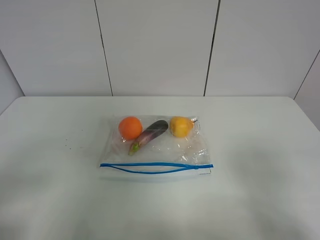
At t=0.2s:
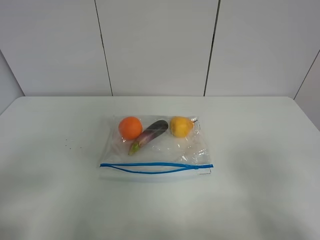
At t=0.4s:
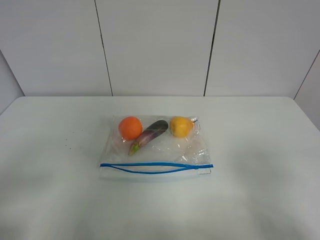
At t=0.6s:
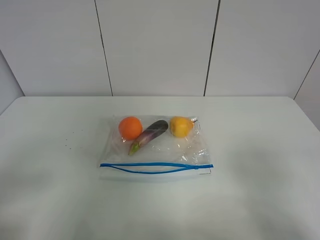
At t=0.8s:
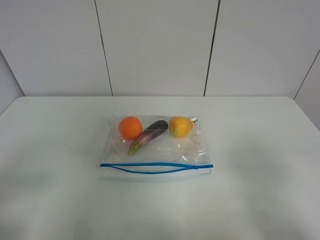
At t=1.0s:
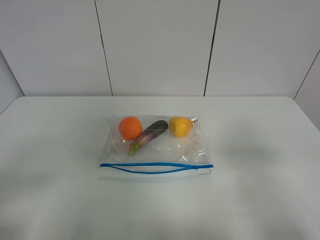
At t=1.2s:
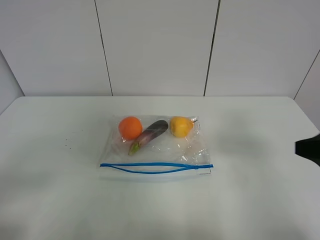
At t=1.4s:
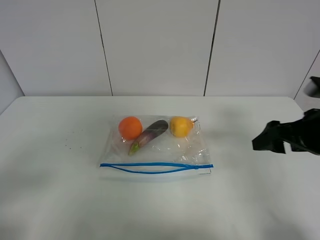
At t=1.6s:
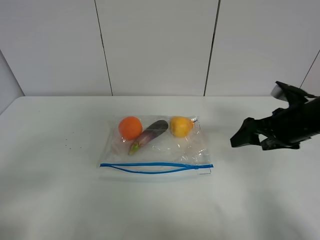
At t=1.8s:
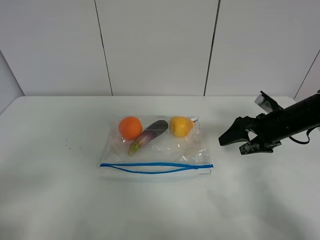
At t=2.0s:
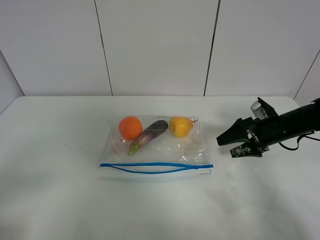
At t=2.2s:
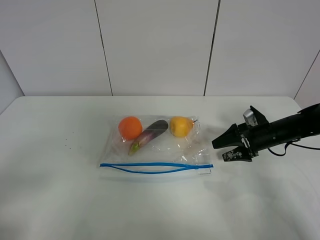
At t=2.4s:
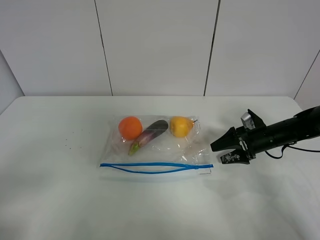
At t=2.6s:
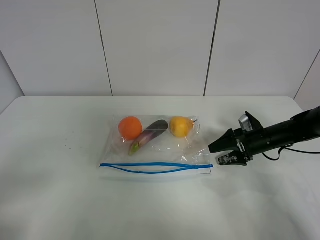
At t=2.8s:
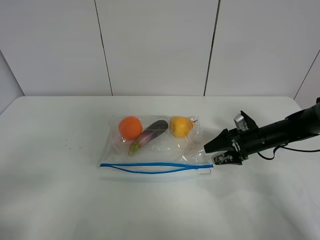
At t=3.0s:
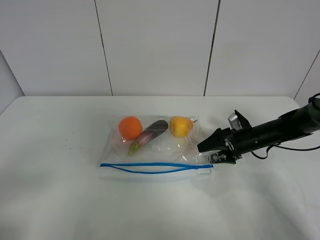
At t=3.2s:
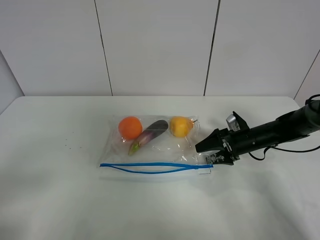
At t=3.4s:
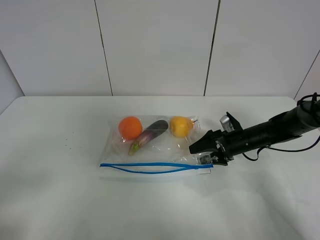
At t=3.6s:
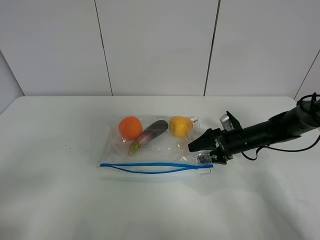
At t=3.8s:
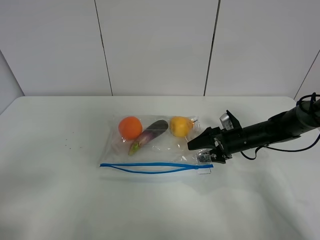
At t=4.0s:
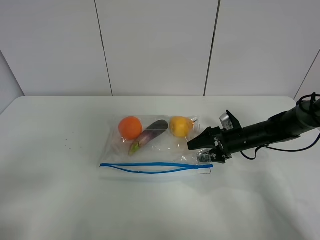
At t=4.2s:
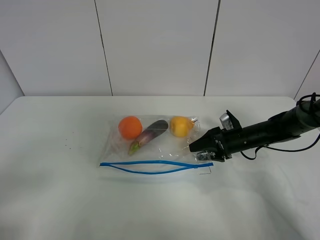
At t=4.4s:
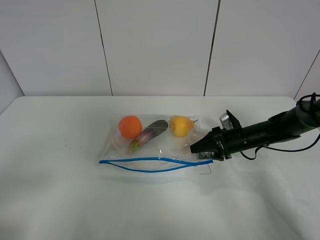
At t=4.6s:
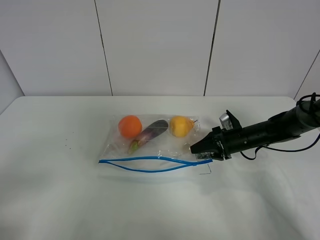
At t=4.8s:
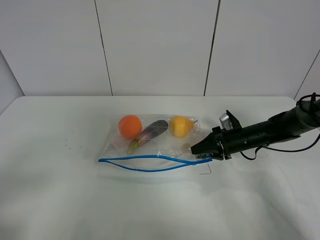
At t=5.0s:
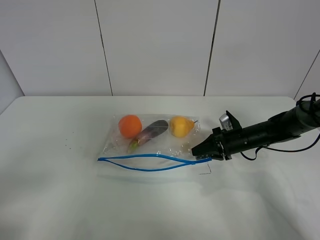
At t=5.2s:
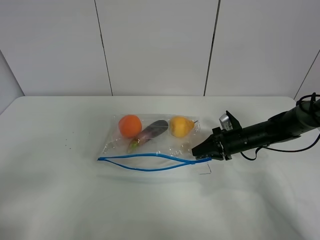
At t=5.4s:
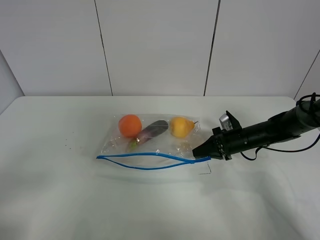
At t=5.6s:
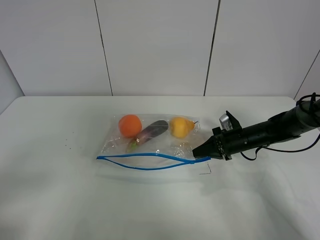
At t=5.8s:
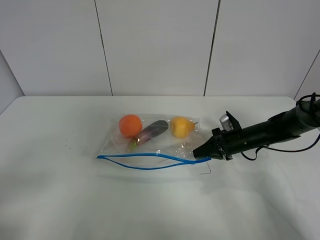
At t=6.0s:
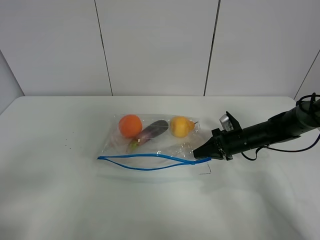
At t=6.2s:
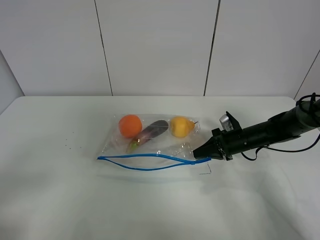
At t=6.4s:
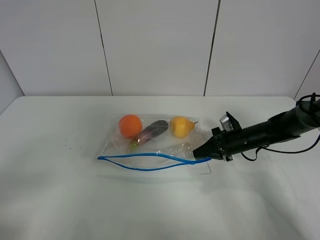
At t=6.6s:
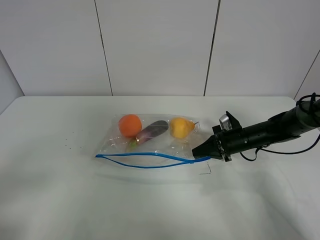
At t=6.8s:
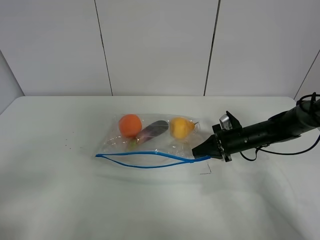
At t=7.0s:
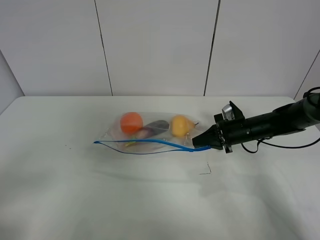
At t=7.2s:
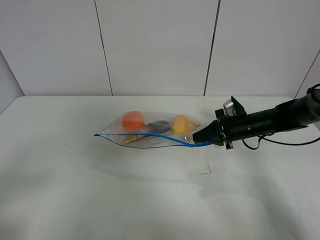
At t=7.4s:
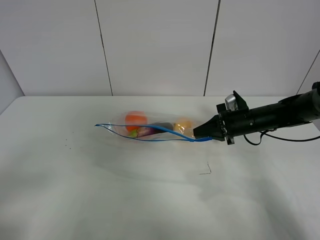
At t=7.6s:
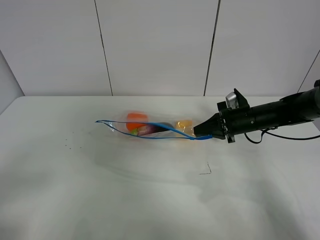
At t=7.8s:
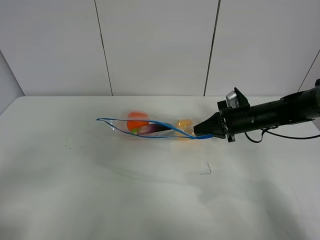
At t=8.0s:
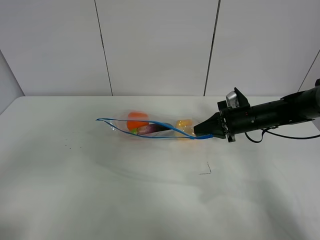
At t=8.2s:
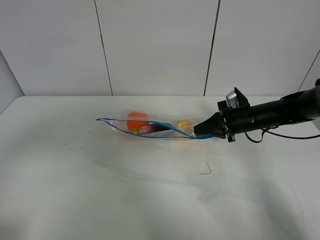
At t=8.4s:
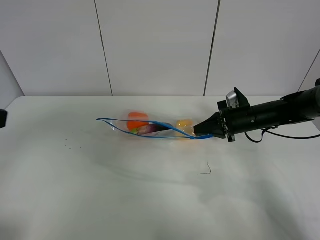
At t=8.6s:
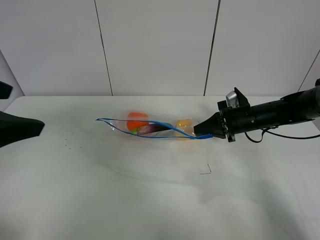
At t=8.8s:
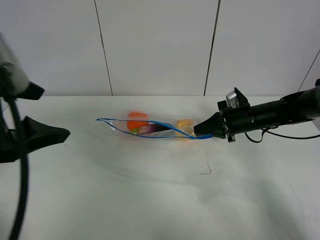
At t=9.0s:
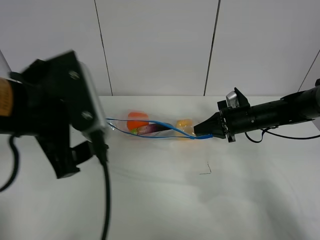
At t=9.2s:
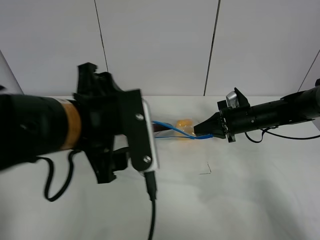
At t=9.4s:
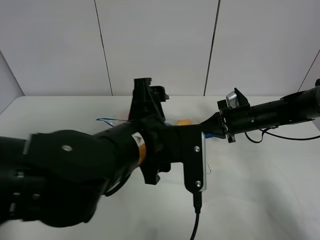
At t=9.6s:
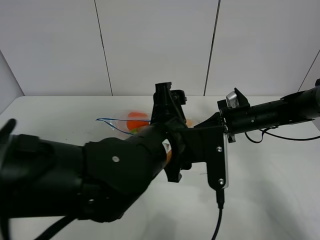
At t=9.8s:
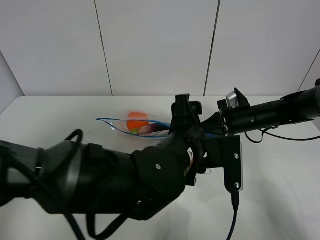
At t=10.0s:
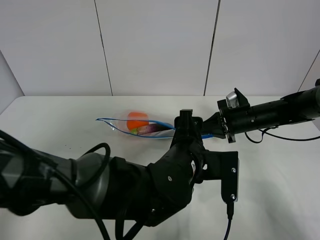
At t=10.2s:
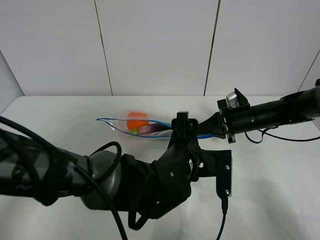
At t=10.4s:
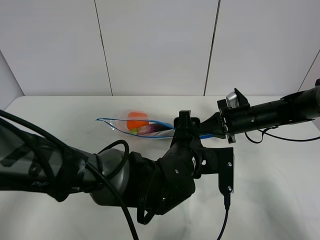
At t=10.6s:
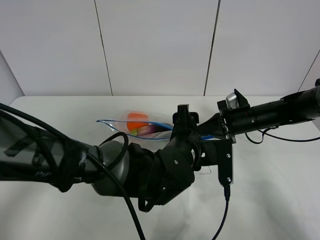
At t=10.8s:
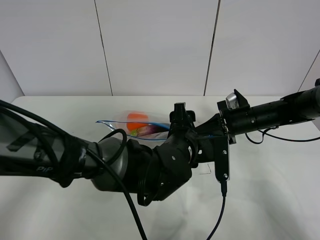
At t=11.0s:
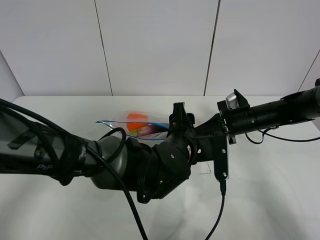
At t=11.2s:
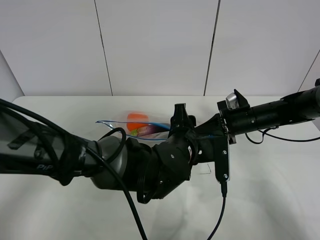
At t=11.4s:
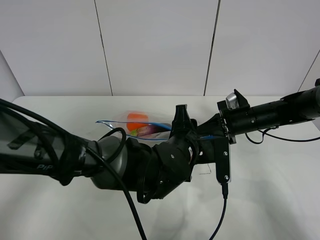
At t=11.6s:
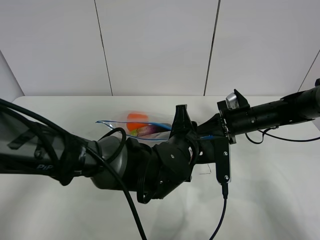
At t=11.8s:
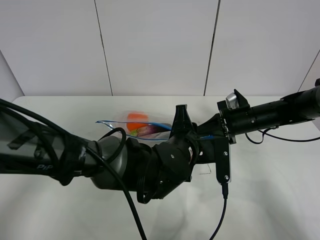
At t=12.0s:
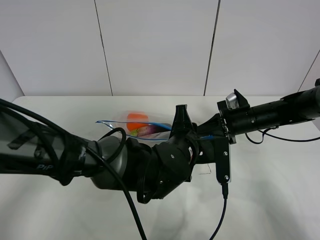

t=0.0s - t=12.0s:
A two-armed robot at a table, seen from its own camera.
Step, t=0.0s - t=5.4s: Grasp the fruit bag with right gripper.
Step, t=5.6s - t=8.0s: Lift the fruit bag with your right gripper.
t=0.0s - t=1.6s: The right gripper shifts some 25 cm forward.
t=1.6s - t=3.0s: The right gripper travels downward and forward by roughly 15 cm.
t=3.0s - t=4.4s: The right gripper closes.
t=4.4s - t=6.0s: The right gripper closes up.
t=6.0s - t=7.6s: The right gripper travels upward by about 5 cm.
t=7.6s - t=9.0s: The left gripper heads to the right and forward, covering about 25 cm.
t=9.0s - t=10.4s: The left gripper moves to the right and downward, about 25 cm.
t=10.4s - t=12.0s: The left gripper closes up.

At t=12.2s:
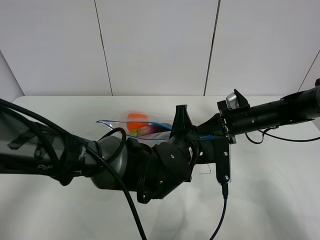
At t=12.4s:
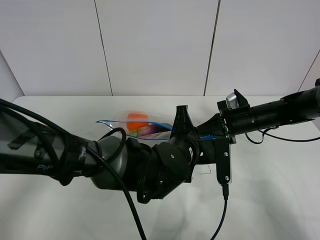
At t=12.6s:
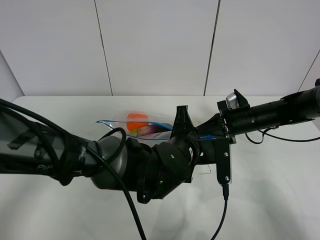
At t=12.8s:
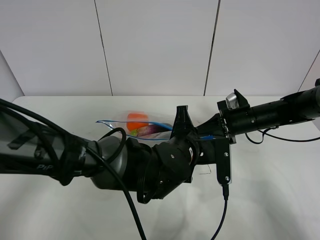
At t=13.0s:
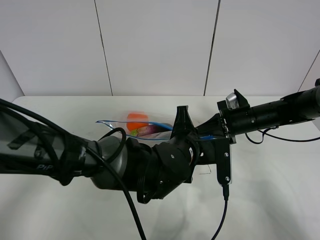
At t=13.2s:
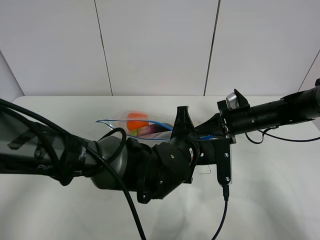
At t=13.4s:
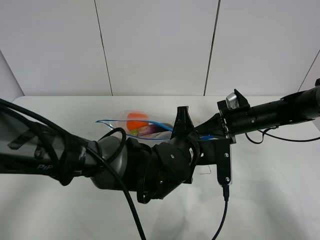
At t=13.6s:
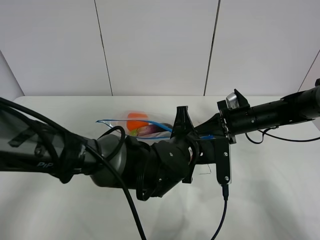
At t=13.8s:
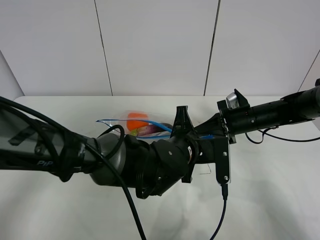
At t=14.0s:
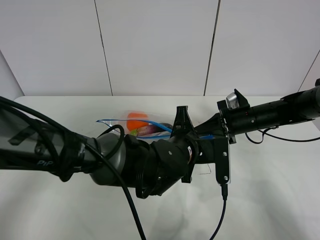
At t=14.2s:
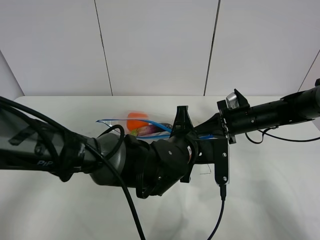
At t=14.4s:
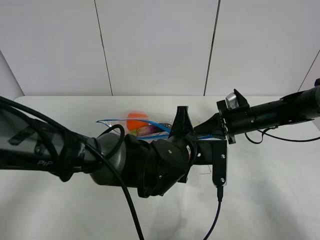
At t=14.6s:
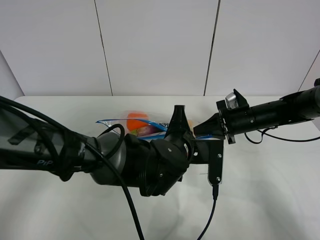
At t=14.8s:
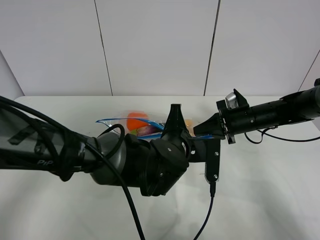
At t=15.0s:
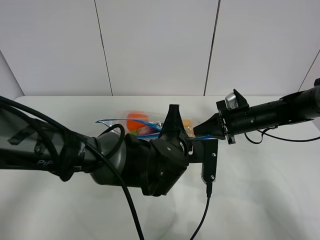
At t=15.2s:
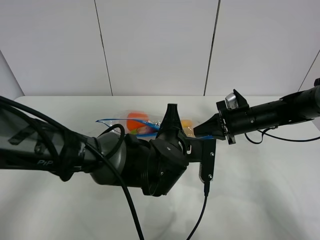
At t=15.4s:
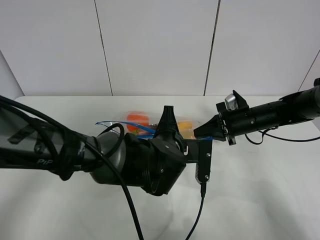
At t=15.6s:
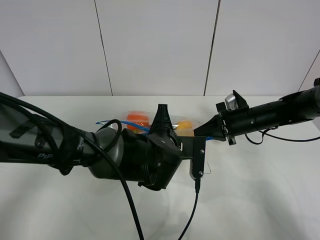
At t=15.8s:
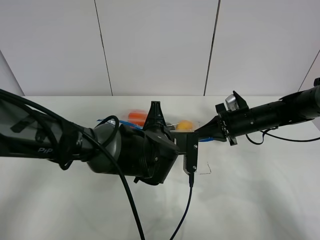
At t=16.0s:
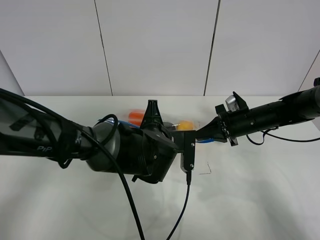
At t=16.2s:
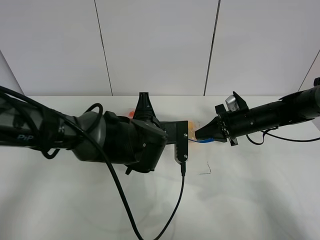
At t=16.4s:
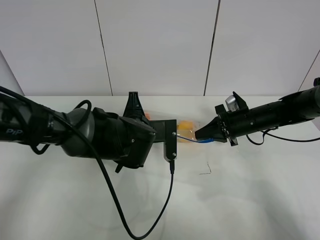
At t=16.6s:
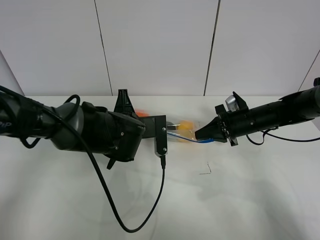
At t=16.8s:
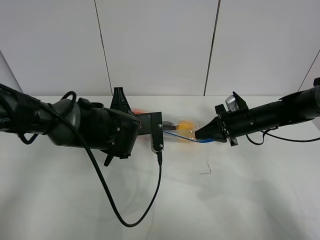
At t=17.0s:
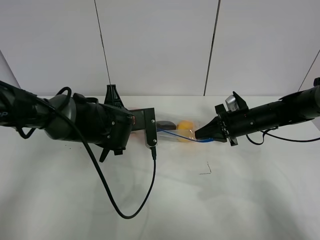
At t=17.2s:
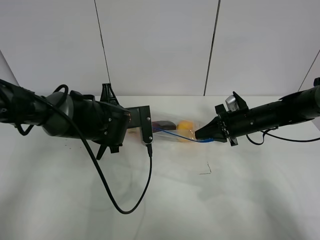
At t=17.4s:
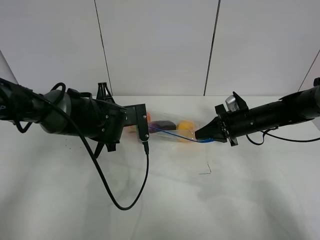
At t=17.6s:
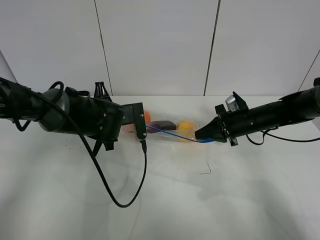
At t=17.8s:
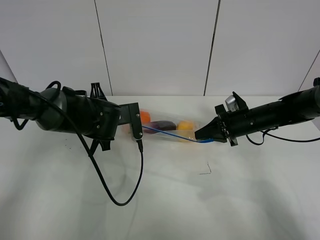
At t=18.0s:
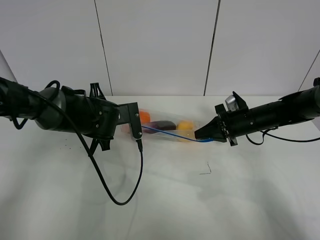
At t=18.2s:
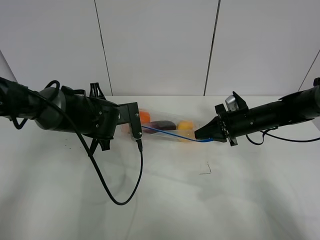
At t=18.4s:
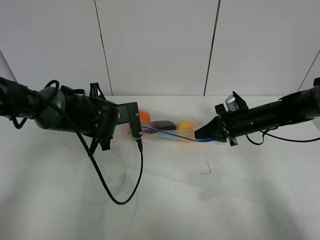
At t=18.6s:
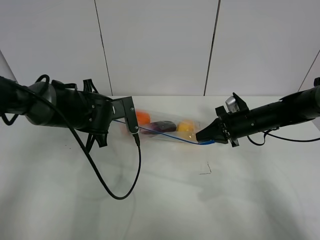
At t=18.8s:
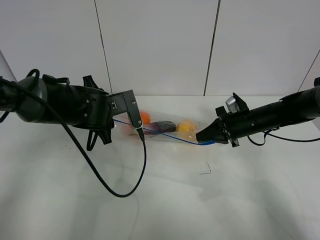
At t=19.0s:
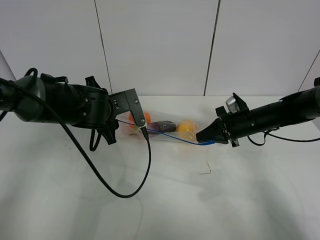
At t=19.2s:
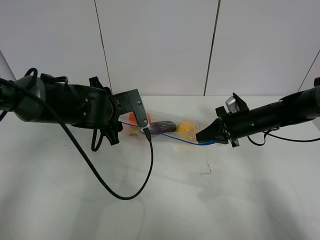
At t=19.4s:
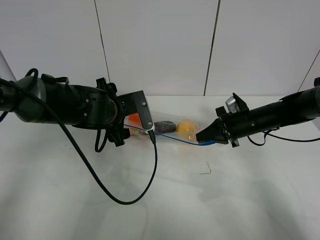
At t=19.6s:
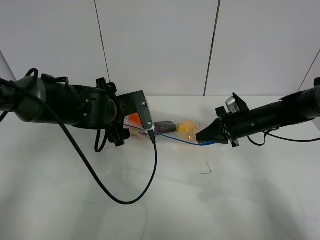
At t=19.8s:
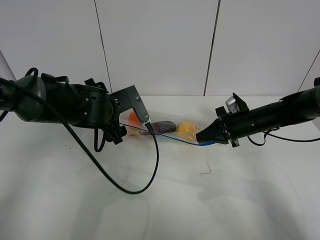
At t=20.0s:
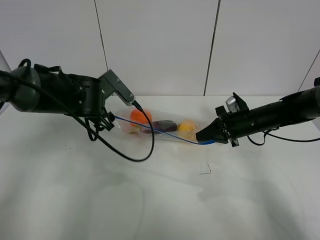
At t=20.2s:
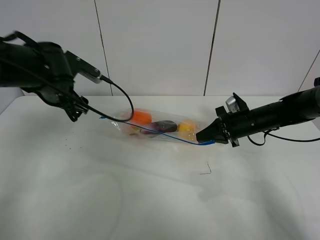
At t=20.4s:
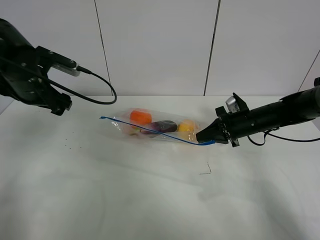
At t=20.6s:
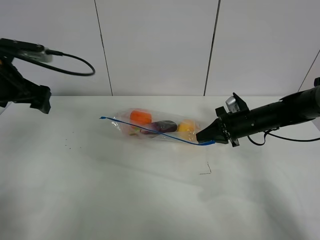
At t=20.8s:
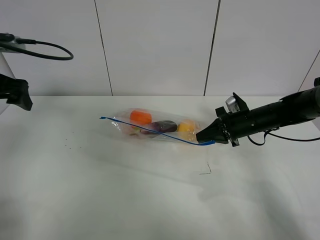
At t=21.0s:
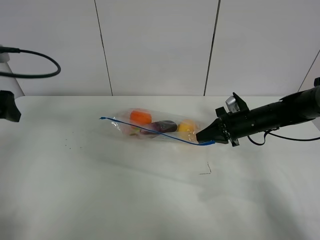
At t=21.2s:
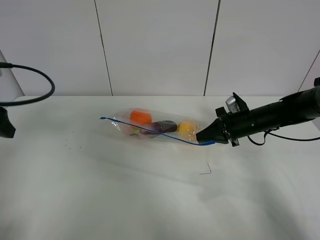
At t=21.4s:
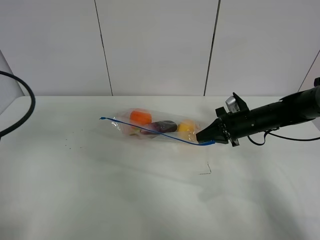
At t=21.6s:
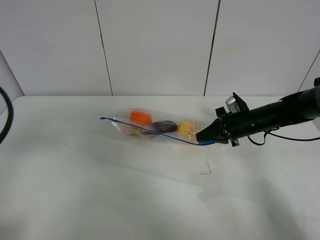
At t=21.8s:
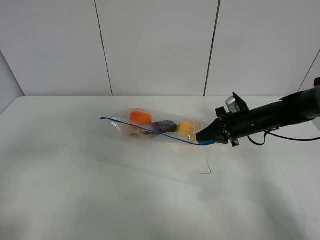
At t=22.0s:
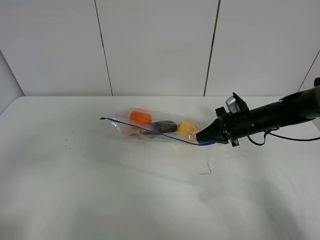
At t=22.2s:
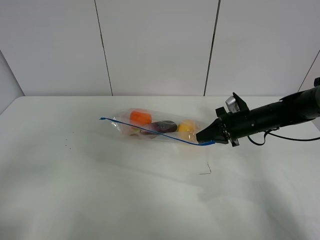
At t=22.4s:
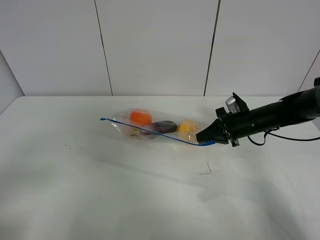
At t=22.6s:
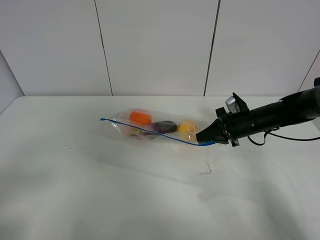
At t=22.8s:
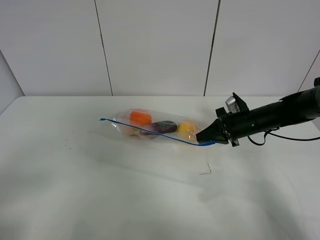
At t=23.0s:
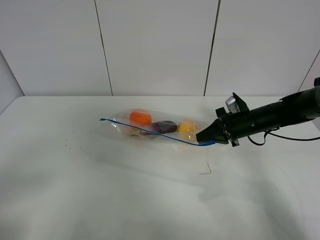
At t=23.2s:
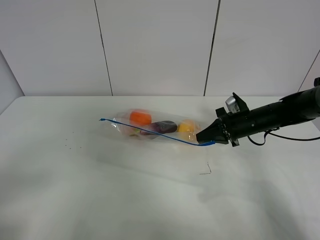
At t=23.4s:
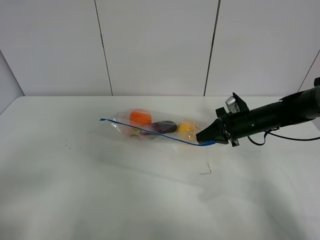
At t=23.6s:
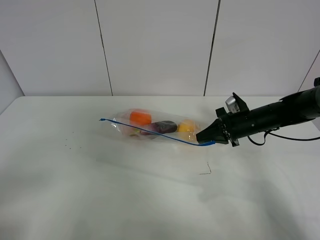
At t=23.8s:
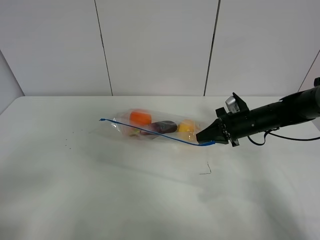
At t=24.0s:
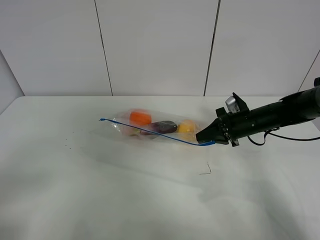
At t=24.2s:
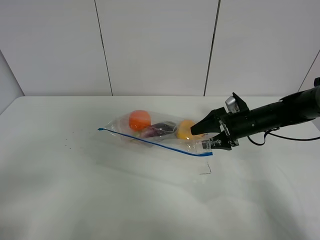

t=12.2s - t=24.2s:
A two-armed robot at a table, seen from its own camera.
Step, t=12.2s - t=18.8s: Pull the fruit bag with left gripper.
t=12.2s - t=13.8s: The two grippers keep their place.
t=13.8s - t=15.2s: The grippers move only a little.
t=15.2s - t=16.6s: The left gripper is displaced to the left by about 10 cm.
t=16.6s - t=18.2s: The left gripper heads to the left, covering roughly 5 cm.
t=18.2s - t=19.8s: The left gripper opens its fingers.
t=19.8s - t=21.2s: The left gripper is displaced to the left, upward and backward by about 25 cm.
t=21.2s - t=22.6s: The left gripper heads backward, covering some 20 cm.
t=22.6s - t=24.2s: The right gripper opens its fingers.
